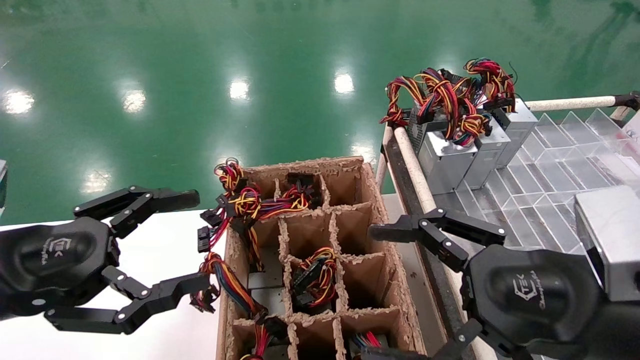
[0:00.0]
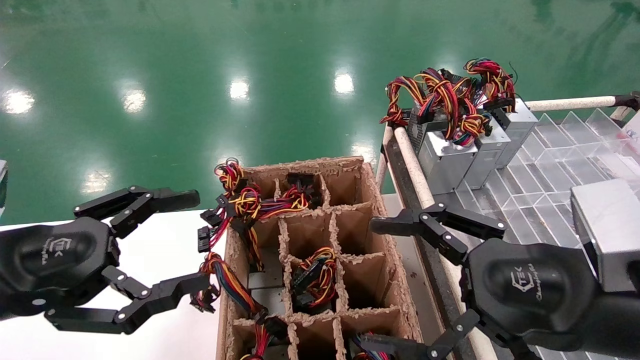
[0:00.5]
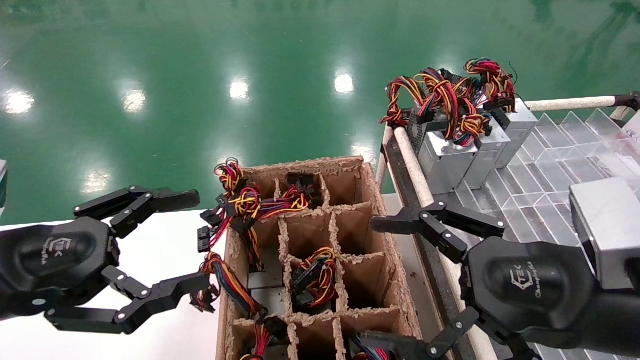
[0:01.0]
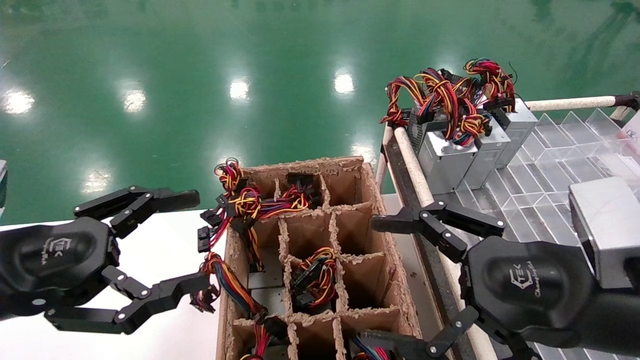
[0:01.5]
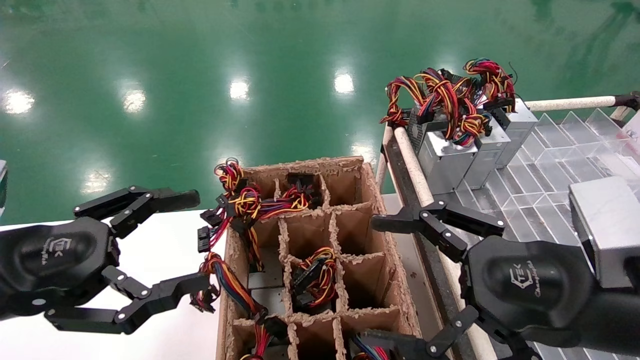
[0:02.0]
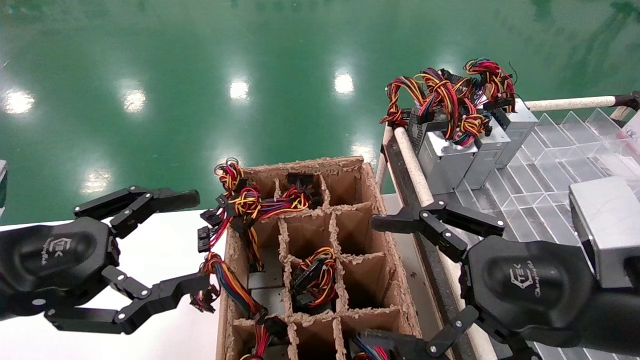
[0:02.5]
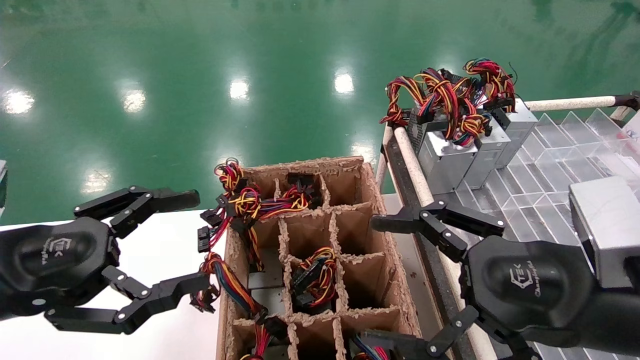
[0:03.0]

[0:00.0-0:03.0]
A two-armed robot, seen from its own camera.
0:00.0 to 0:03.0: Both grippers stay about where they are.
